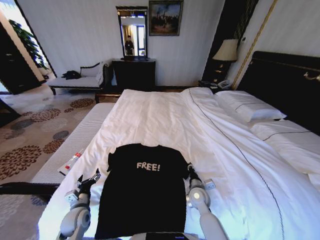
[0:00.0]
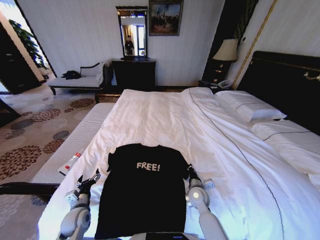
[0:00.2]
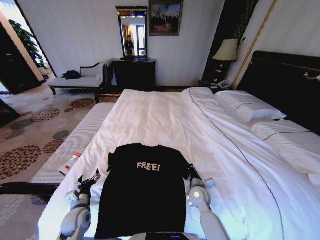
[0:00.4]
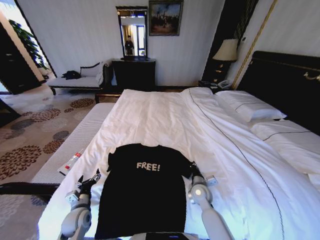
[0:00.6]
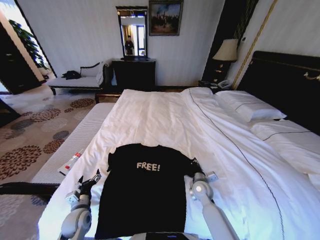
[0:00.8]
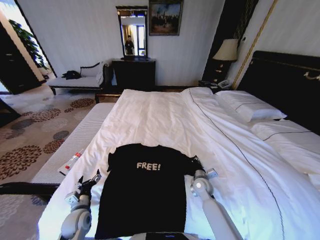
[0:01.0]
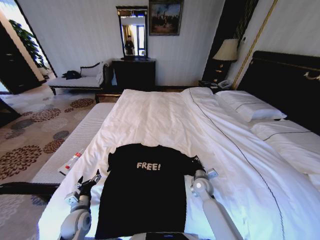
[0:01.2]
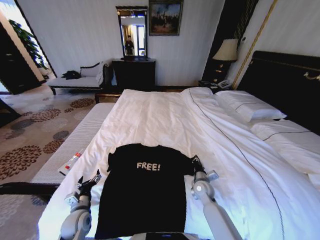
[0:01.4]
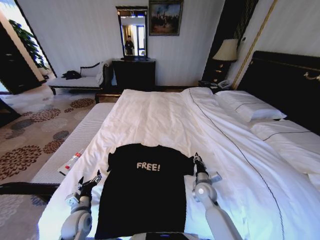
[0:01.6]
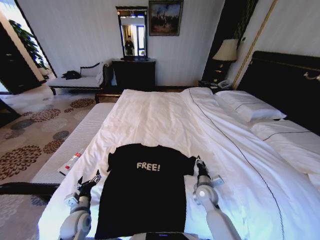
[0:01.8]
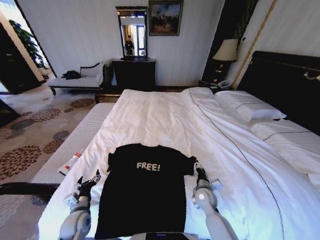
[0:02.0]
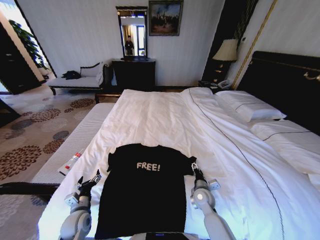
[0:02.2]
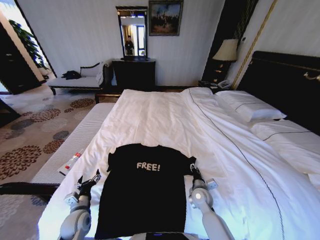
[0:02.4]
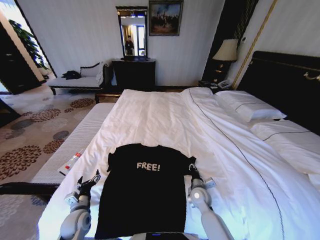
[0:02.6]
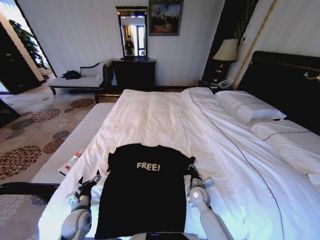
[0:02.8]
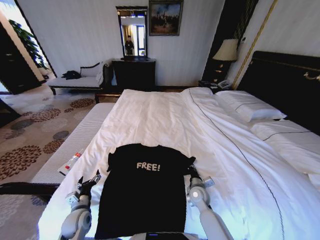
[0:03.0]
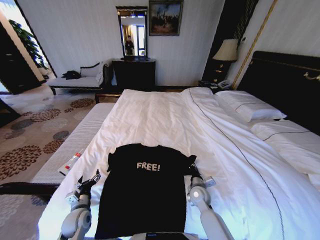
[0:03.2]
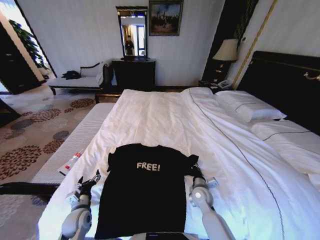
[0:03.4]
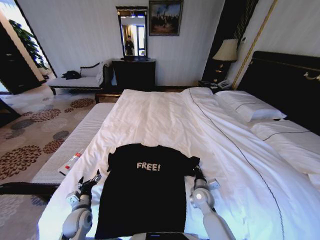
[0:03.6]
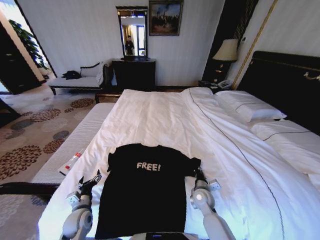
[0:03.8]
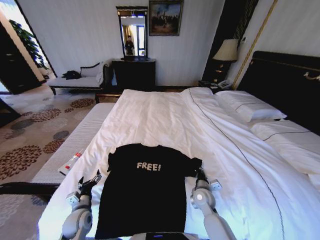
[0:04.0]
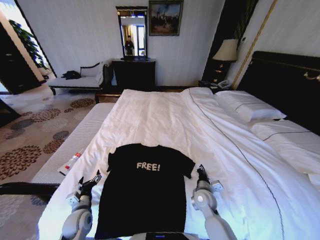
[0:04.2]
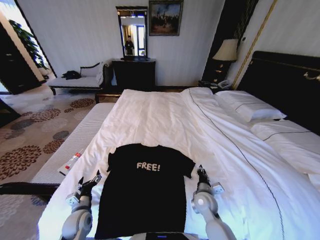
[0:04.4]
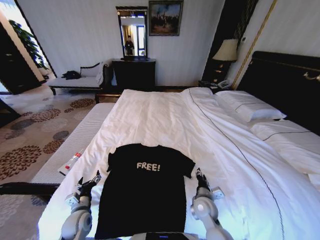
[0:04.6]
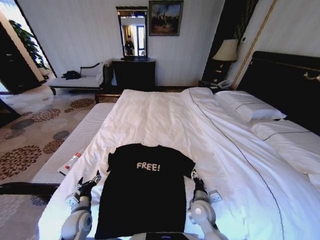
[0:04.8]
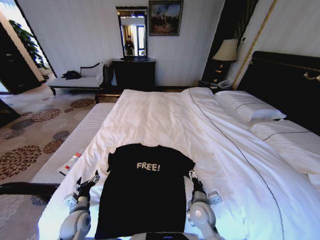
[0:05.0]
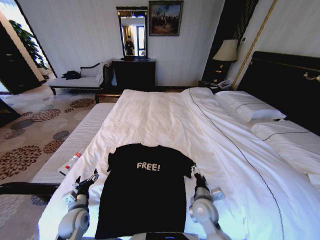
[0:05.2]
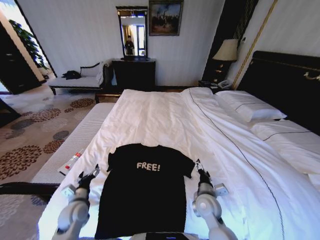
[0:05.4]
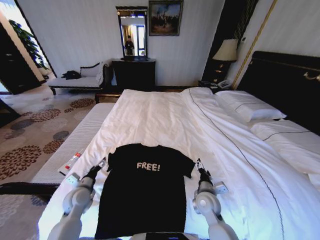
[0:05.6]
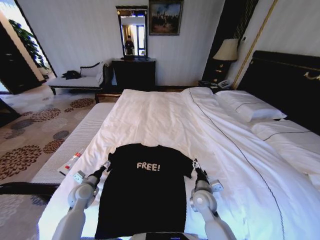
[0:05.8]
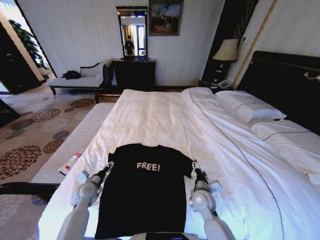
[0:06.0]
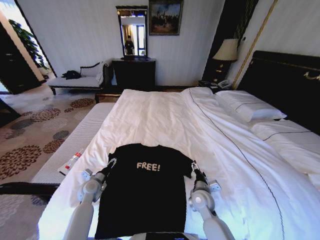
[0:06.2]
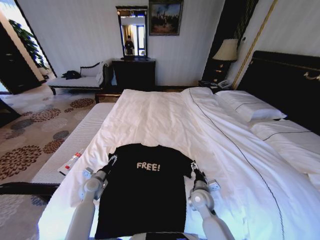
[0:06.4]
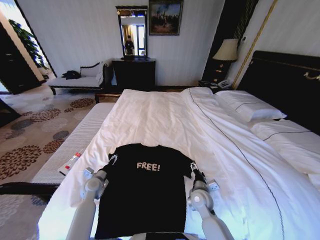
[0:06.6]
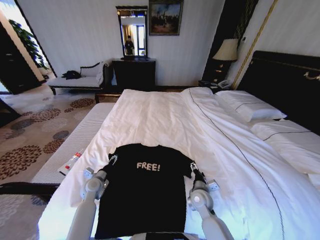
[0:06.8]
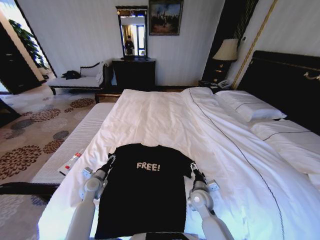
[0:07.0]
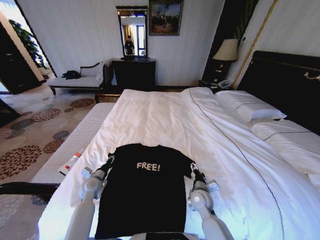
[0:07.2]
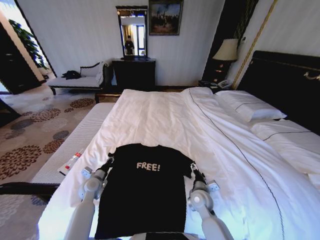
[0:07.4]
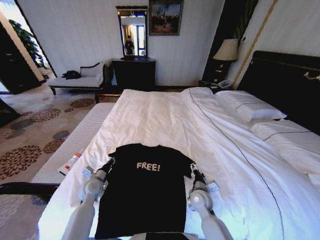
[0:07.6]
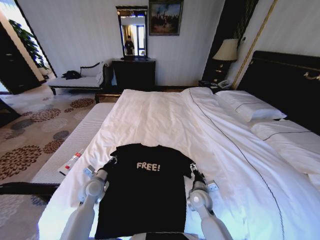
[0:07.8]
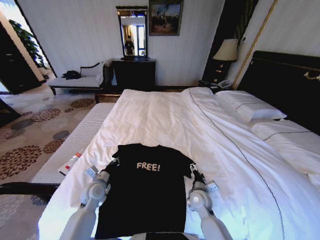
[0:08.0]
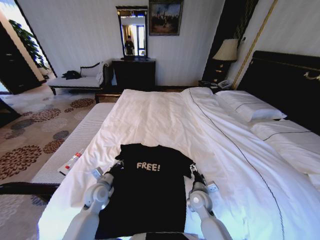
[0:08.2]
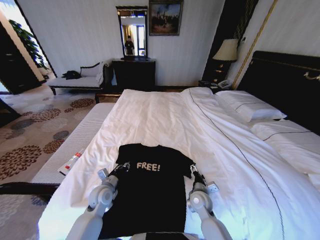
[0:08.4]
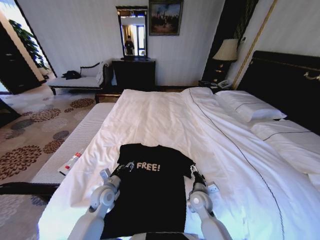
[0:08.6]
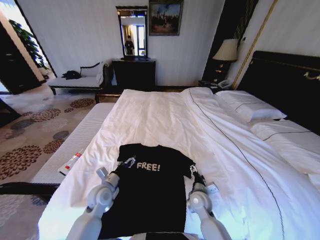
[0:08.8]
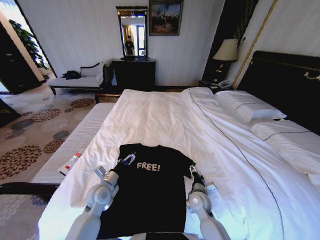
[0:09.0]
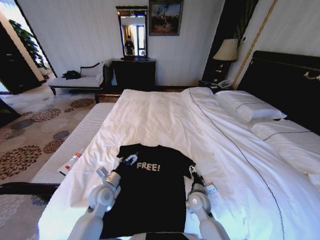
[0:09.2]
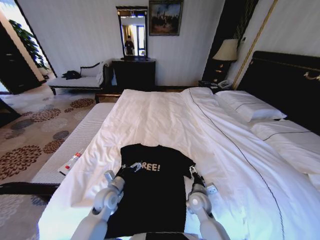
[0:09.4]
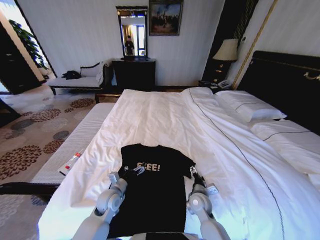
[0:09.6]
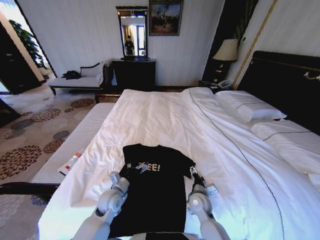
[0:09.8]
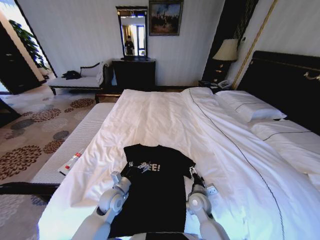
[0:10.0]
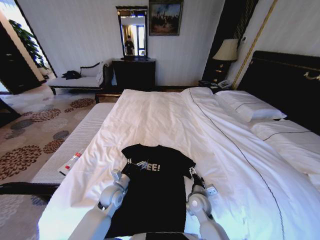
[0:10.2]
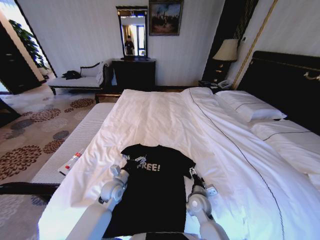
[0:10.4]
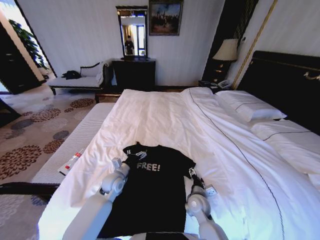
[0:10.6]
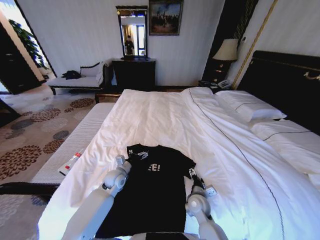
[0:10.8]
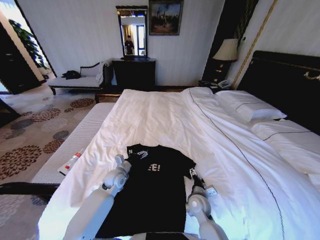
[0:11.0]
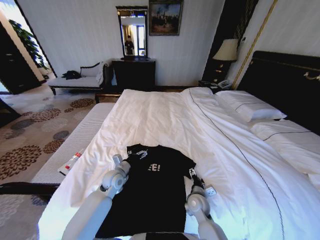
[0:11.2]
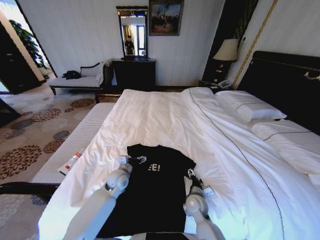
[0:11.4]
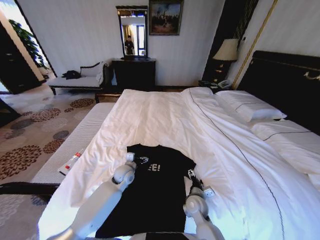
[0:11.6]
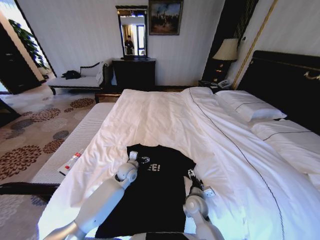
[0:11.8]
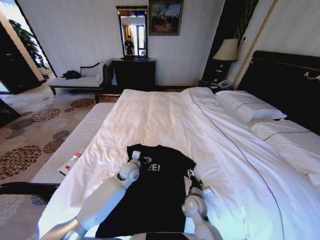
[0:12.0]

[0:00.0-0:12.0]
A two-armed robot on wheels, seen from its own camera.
Task of the whole recording: Fold the clothes on the bed.
0:01.6 to 0:03.0: The right gripper opens and closes again.
0:03.0 to 0:04.4: The grippers stay close to where they were, moving slightly.
0:04.4 to 0:06.0: The right gripper opens; the left gripper is displaced forward by roughly 10 cm.
0:06.0 to 0:07.6: The left gripper closes.
0:07.6 to 0:09.0: The left gripper goes approximately 5 cm to the right, and opens its fingers.
0:09.0 to 0:10.4: The left gripper shifts by some 5 cm.
0:10.4 to 0:12.0: The left gripper moves forward and to the right, some 10 cm.

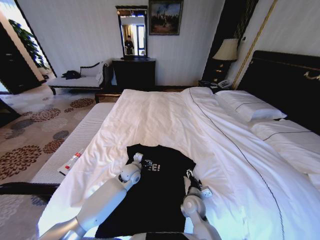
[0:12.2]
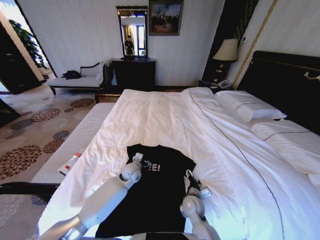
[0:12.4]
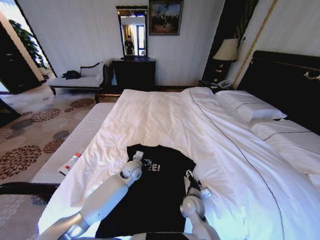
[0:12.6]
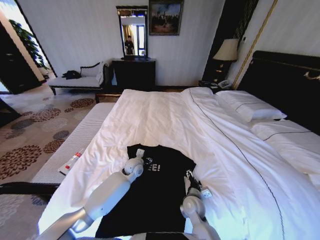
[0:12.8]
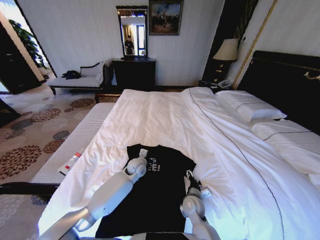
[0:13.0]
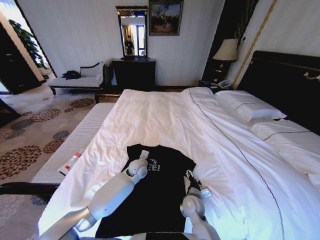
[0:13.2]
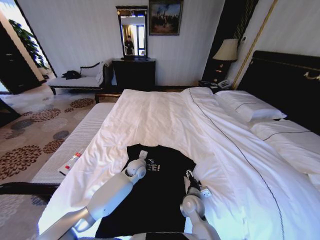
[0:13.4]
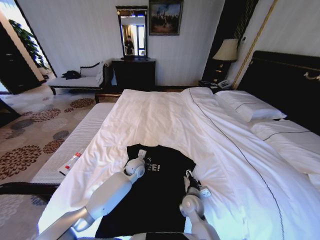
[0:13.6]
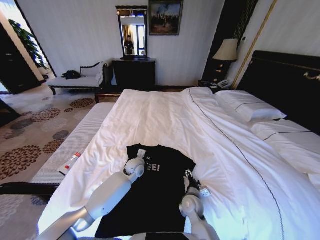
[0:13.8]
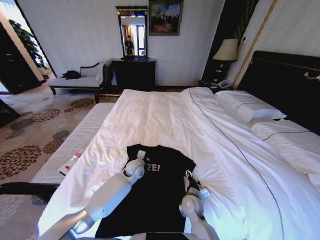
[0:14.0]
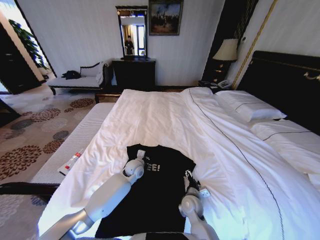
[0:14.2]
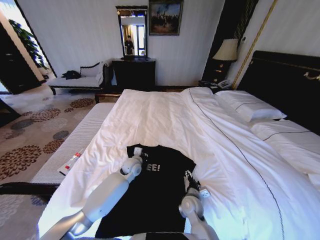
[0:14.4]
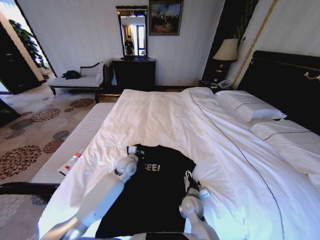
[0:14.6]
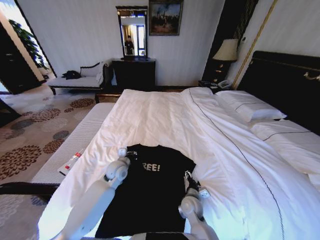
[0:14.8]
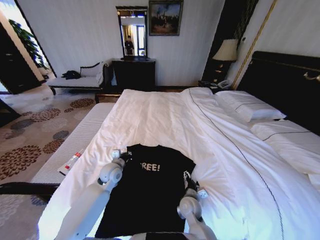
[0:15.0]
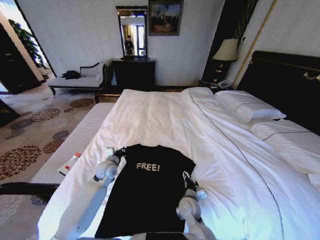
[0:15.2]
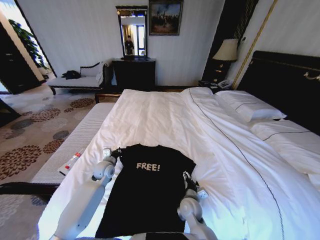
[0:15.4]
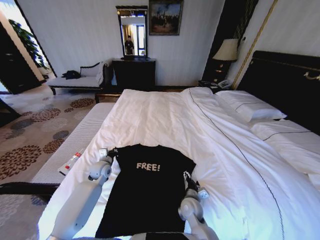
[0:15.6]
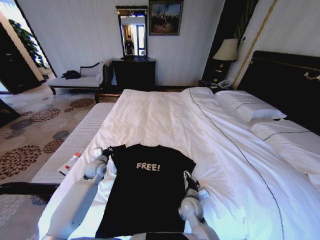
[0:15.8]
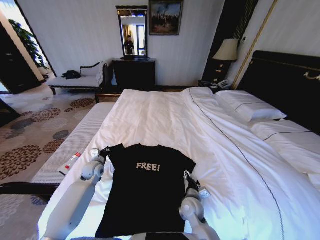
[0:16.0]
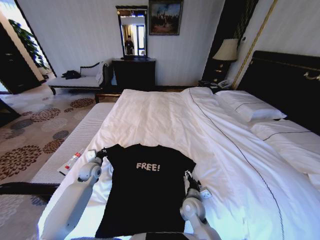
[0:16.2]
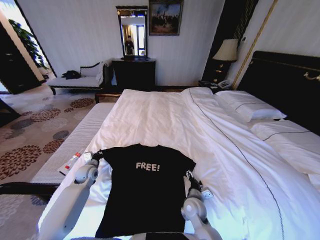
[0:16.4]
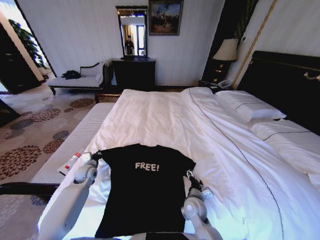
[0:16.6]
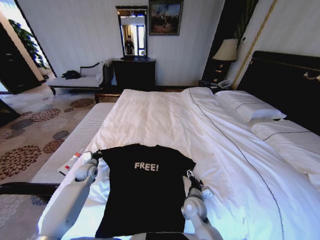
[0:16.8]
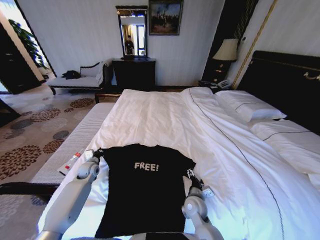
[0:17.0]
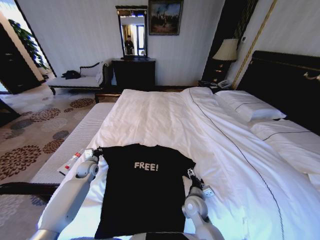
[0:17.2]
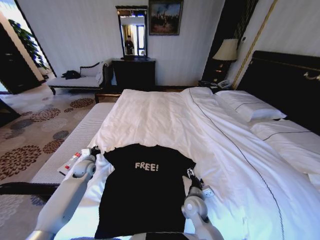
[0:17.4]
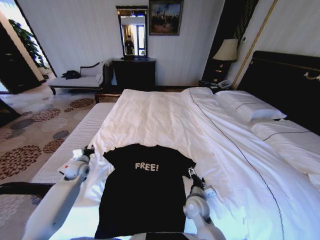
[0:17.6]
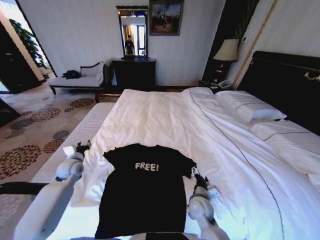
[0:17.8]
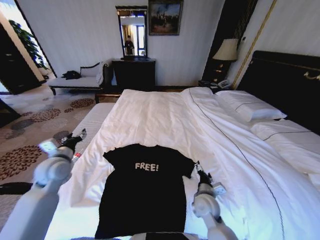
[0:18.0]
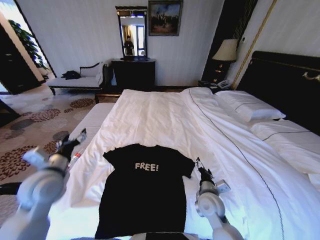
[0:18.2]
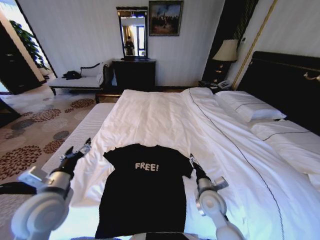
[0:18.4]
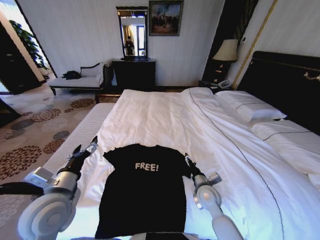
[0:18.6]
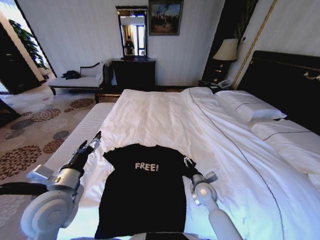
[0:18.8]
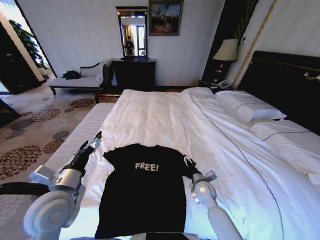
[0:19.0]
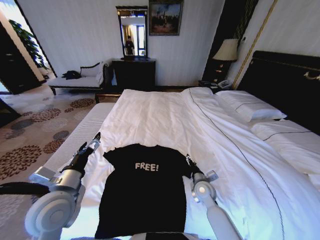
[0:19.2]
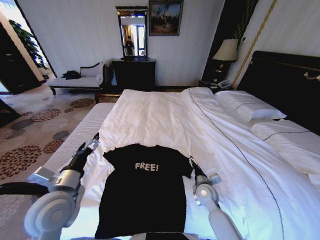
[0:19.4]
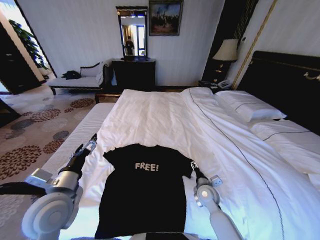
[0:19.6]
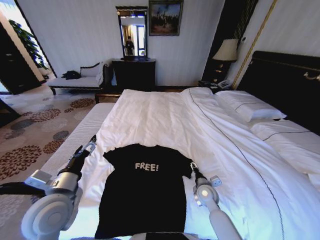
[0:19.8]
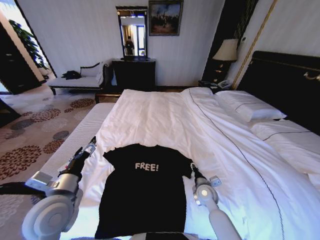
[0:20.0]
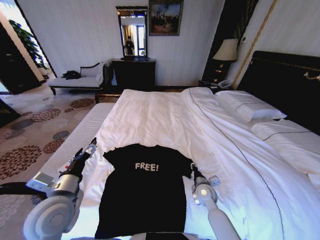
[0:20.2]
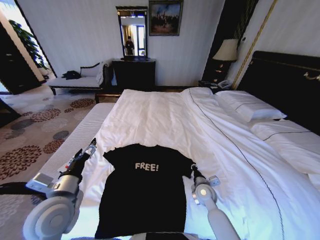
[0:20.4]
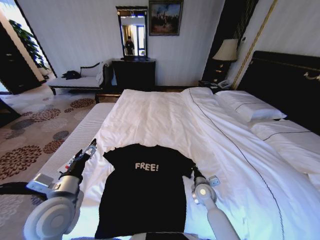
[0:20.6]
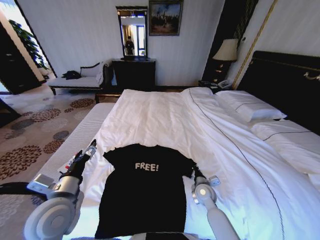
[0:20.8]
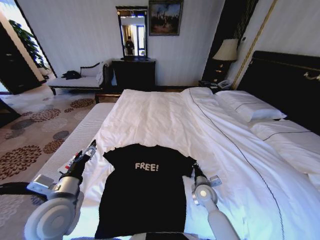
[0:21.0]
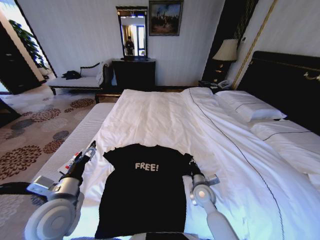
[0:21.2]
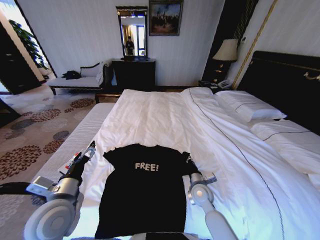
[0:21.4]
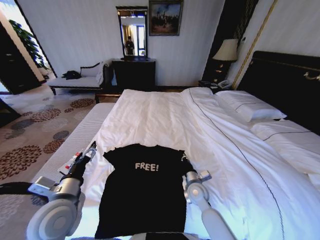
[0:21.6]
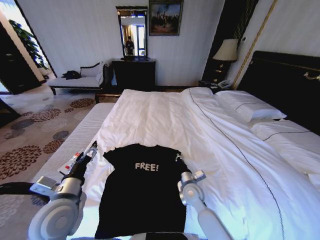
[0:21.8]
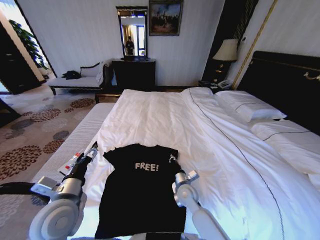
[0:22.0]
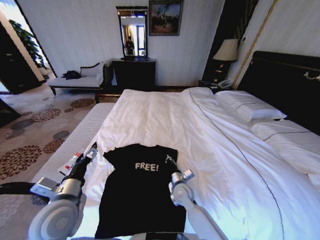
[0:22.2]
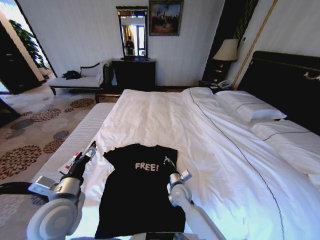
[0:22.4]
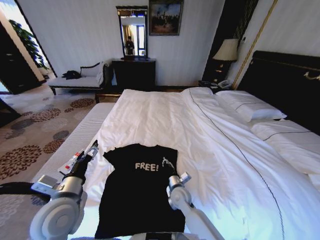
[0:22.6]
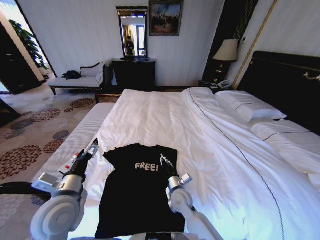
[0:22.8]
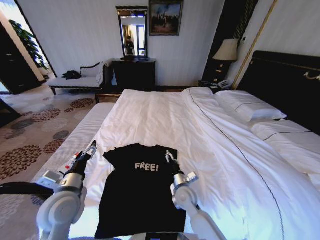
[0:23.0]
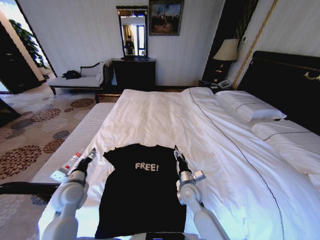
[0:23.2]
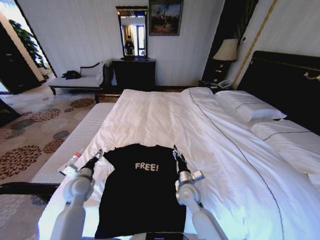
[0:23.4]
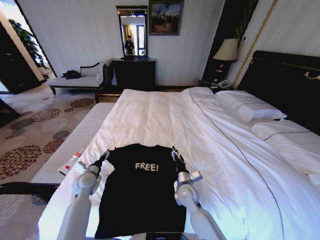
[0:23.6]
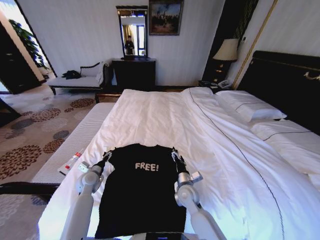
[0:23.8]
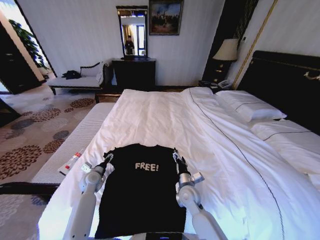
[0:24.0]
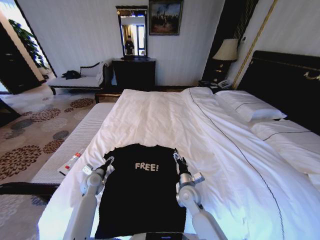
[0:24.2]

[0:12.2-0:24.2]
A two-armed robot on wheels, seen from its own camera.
Task of the whole recording: Fold the clothes on the bed.
0:12.2 to 0:13.8: The left gripper closes.
0:13.8 to 0:15.2: The left gripper shifts approximately 15 cm to the left.
0:15.2 to 0:16.6: The left gripper travels to the left and downward by some 15 cm.
0:16.6 to 0:18.2: The right gripper travels upward by some 5 cm; the left gripper is displaced upward and backward by about 25 cm, and opens up.
0:18.2 to 0:19.8: The right gripper moves downward and forward, about 10 cm, while the left gripper travels to the right and backward by some 10 cm.
0:19.8 to 0:21.2: The right gripper closes.
0:21.2 to 0:22.6: The right gripper travels to the left by roughly 10 cm.
0:22.6 to 0:24.2: The right gripper opens. Meanwhile the left gripper is displaced downward and forward by some 25 cm.
